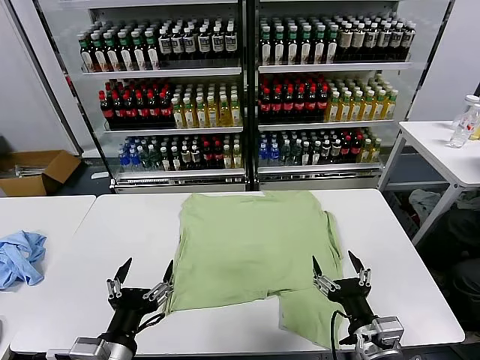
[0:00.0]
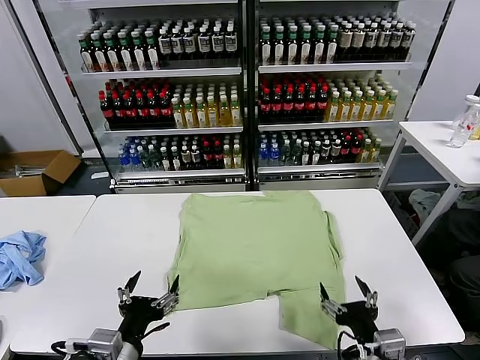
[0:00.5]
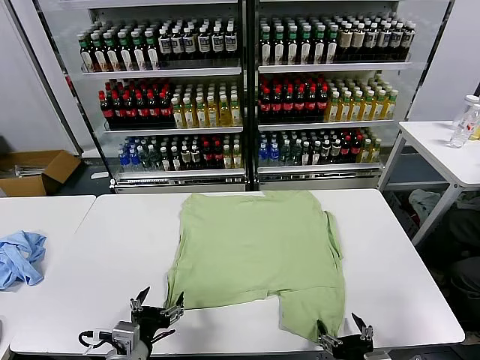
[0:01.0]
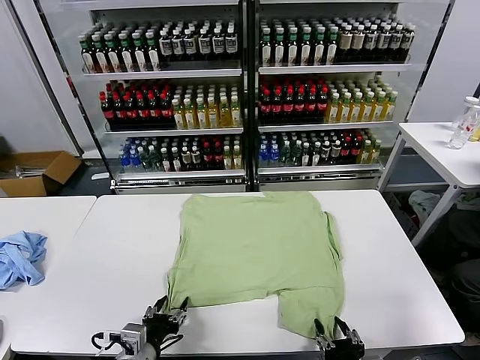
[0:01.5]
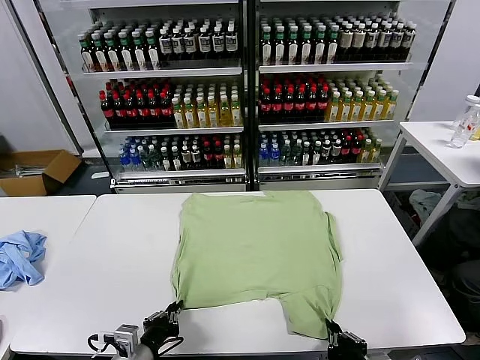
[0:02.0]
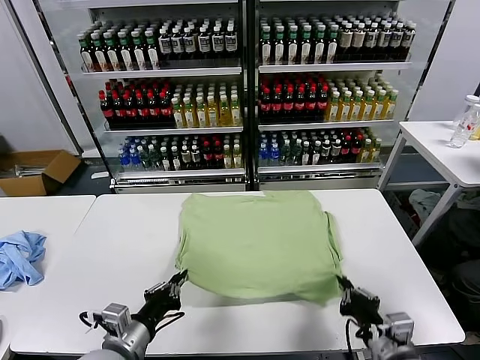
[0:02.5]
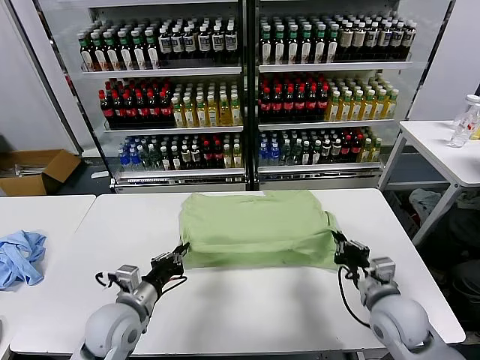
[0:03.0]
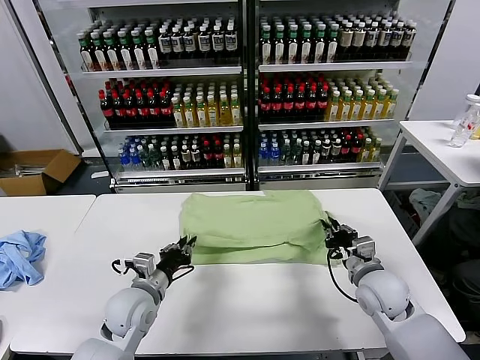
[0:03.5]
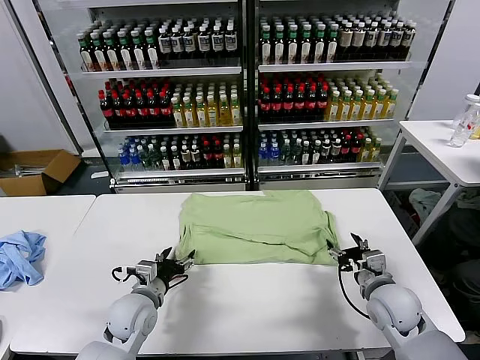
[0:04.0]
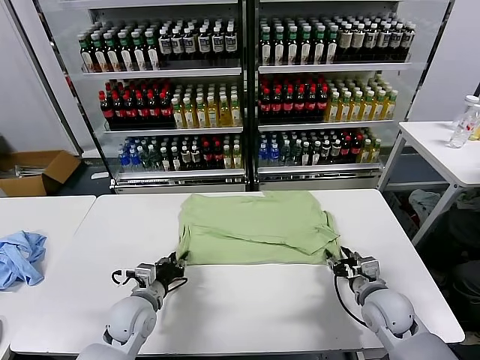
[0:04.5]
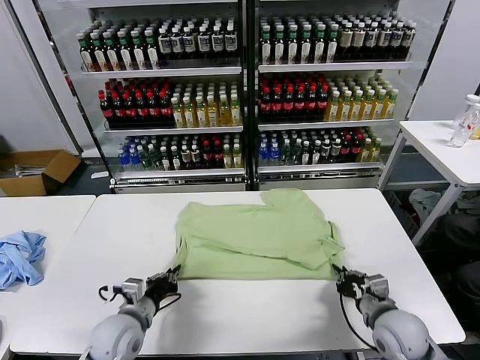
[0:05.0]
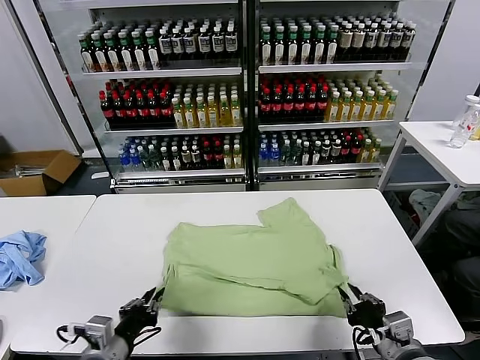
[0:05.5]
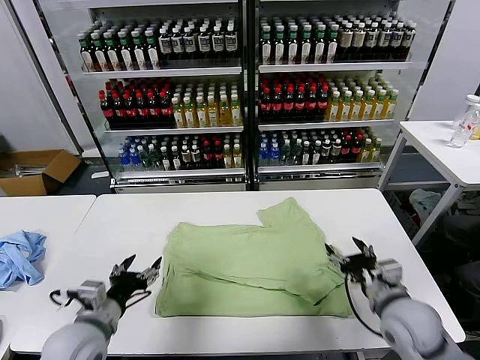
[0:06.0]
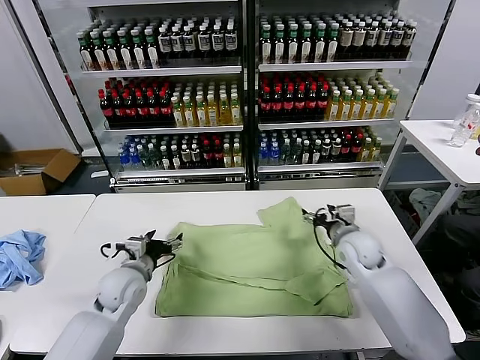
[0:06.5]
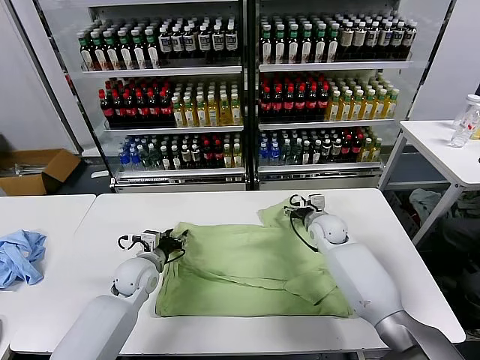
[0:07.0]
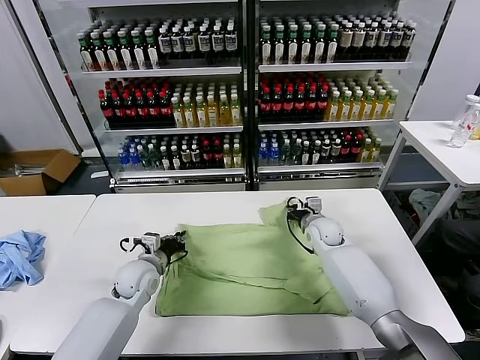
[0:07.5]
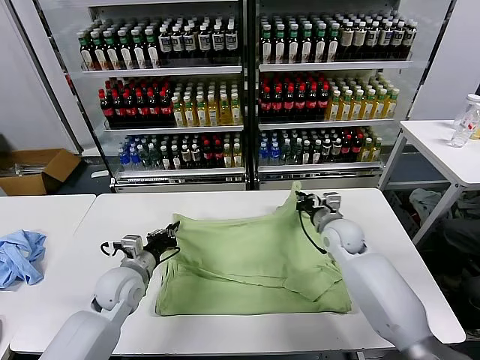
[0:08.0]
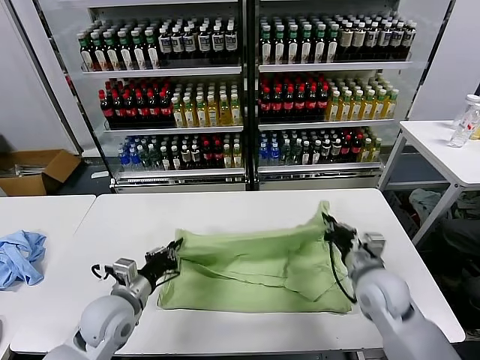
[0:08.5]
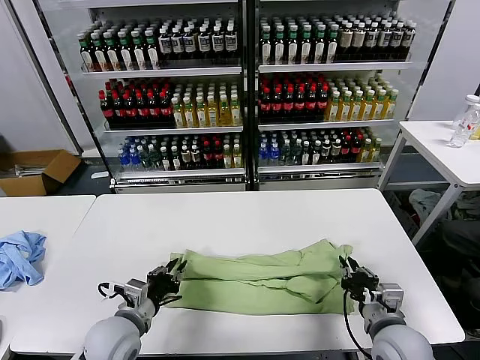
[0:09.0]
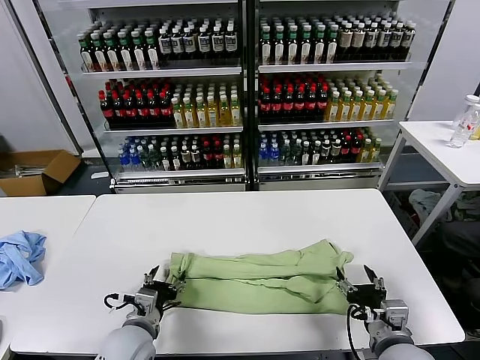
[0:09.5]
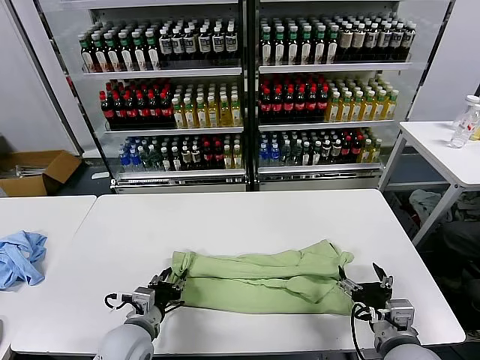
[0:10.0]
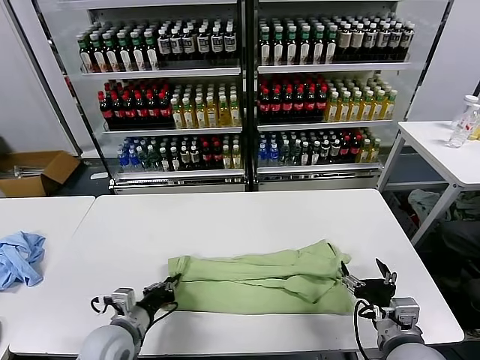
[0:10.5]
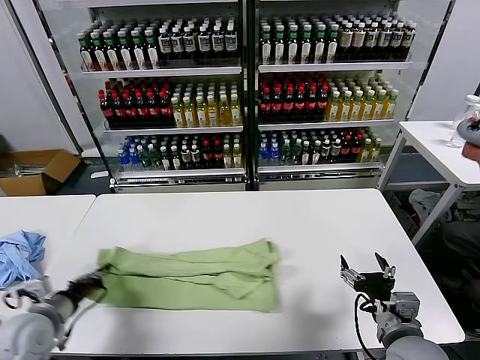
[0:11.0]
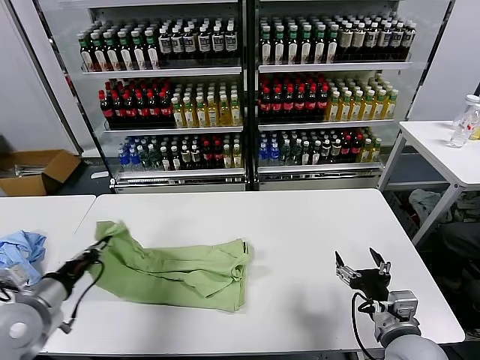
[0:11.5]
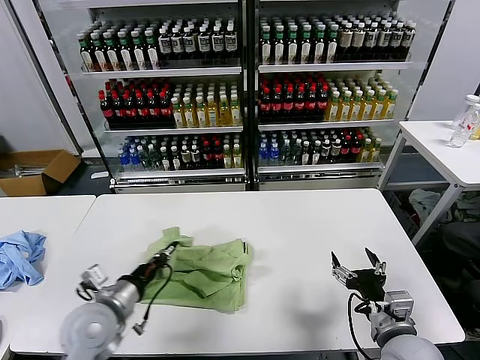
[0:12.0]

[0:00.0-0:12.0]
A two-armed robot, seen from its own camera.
Task of the whole recording: fold and organize the clothes.
Step, 0:00.0 to 0:02.0: use both grippers simultaneously to clamp the lower edge of the clothing fabric.
Step, 0:02.5 to 0:04.0: use both grippers to drag the lower edge of the fabric forward and fold it over the upper edge.
Step, 0:04.5 to 0:05.5: Drag the clothes downward with both gripper.
Step, 0:06.0 to 0:07.5: use both grippers simultaneously to clamp the upper edge of the clothing fabric.
Step, 0:08.0 to 0:09.0: use both grippers to drag the upper edge of the fabric backward and fold it over the lower edge.
Step, 0:09.5 to 0:10.0: use the left gripper to clamp the left edge of the fabric.
0:02.0 to 0:04.0: Both grippers move forward, approximately 20 cm. The right gripper opens its fingers, while the left gripper opens its fingers.
0:04.0 to 0:06.0: The right gripper travels backward and back again, roughly 15 cm each way, and closes, then reopens. The left gripper shifts about 10 cm backward and upward, and closes and opens again.
0:06.0 to 0:08.0: The right gripper travels forward by some 20 cm, and closes up. Meanwhile the left gripper is displaced forward by about 15 cm, and closes its fingers.
0:08.0 to 0:10.0: The right gripper shifts some 30 cm backward, and opens up; the left gripper travels backward by roughly 10 cm, and opens its fingers.
0:10.0 to 0:12.0: The left gripper is displaced upward by approximately 10 cm, travels to the left and back again, about 20 cm each way, and closes up.

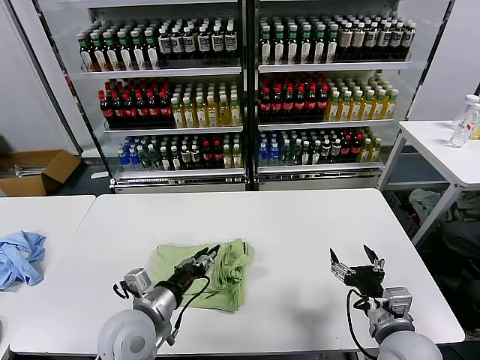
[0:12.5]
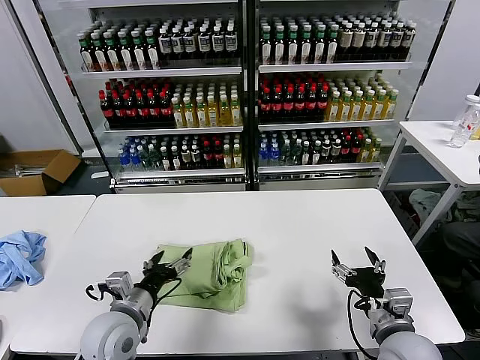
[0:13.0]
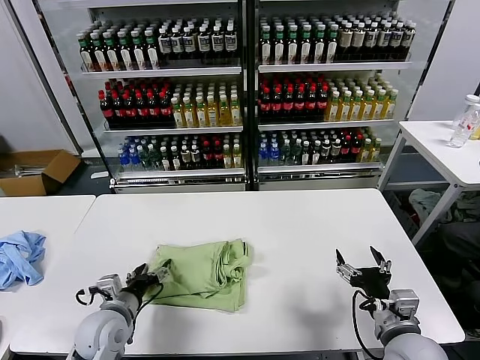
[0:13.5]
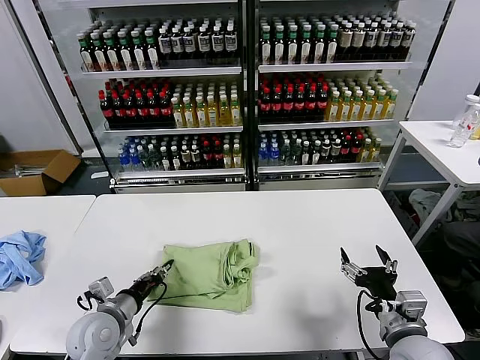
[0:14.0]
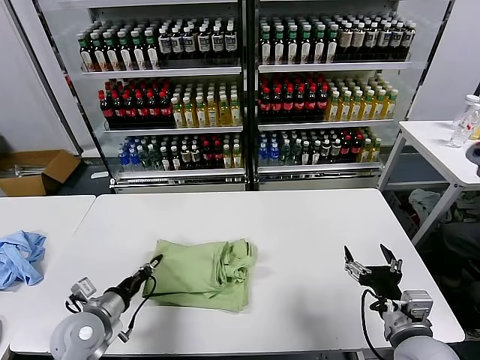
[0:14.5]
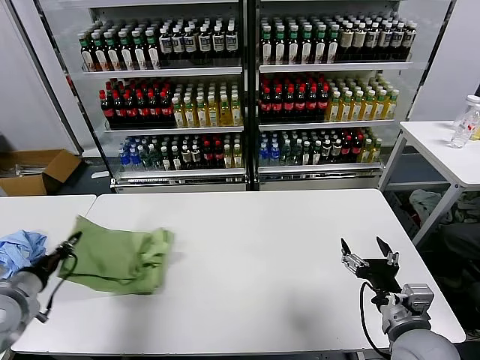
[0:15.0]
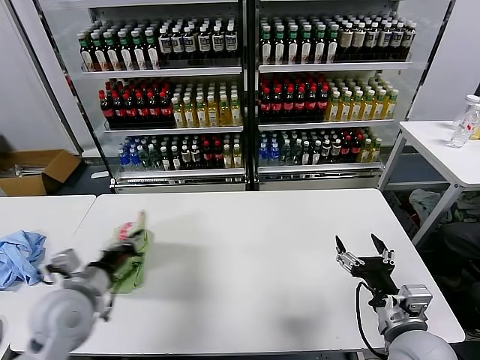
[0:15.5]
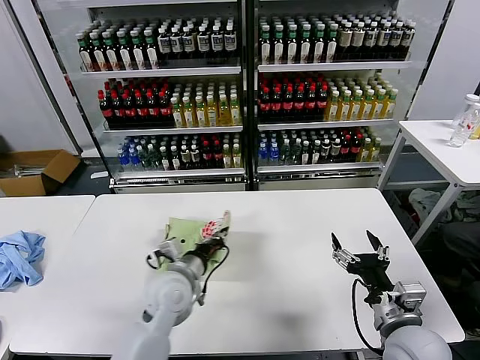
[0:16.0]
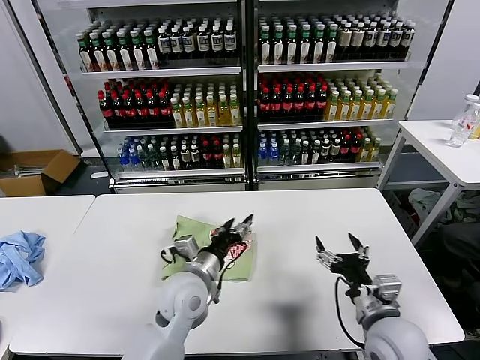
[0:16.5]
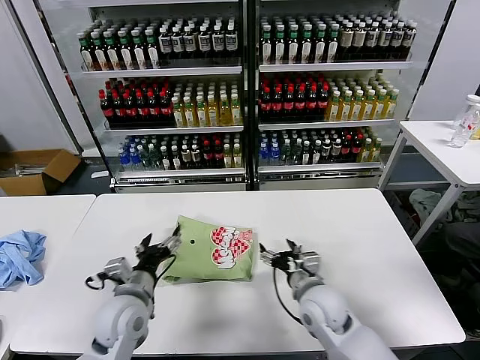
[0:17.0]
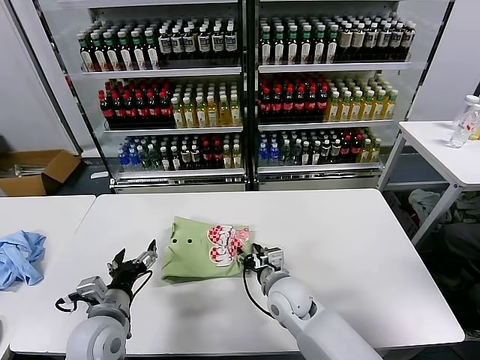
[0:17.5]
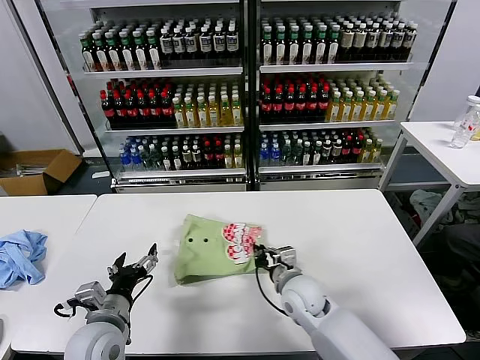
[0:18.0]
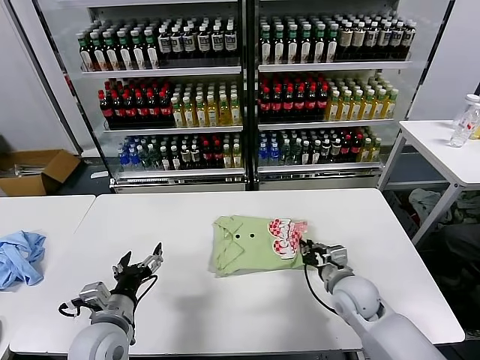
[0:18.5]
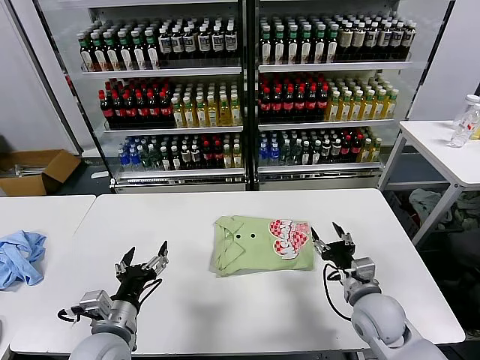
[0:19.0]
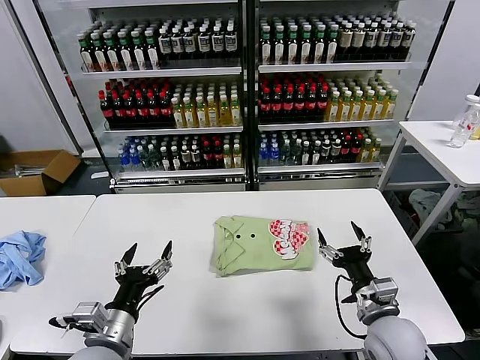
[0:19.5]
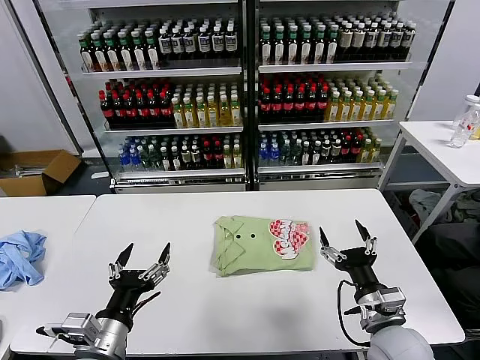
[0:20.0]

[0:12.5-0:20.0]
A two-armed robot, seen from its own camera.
Task of the whole recording: fold and organize the clothes.
Step, 0:13.0 to 0:16.0: Flip the folded clothes over with left gripper.
Step, 0:16.5 to 0:18.5: Drag the clothes to the center of the table.
0:12.5 to 0:14.5: The left gripper goes approximately 15 cm to the left and downward, and closes up.
0:14.5 to 0:16.5: The left gripper heads to the right, covering approximately 20 cm, and opens up.
0:16.5 to 0:18.0: The right gripper goes approximately 20 cm to the left, forward and downward, and closes. Meanwhile the left gripper moves to the left and backward, approximately 20 cm.
0:18.0 to 0:20.0: The left gripper is displaced backward by approximately 5 cm; the right gripper shifts approximately 20 cm to the right, backward and upward, and opens.
